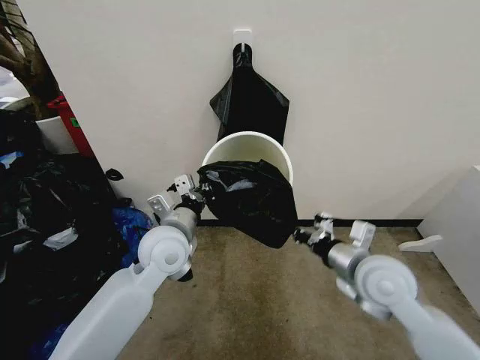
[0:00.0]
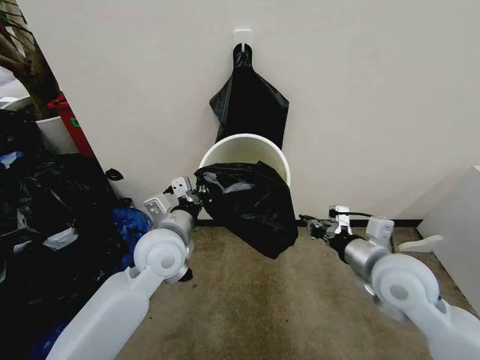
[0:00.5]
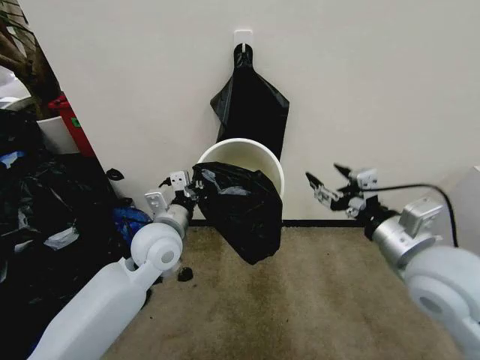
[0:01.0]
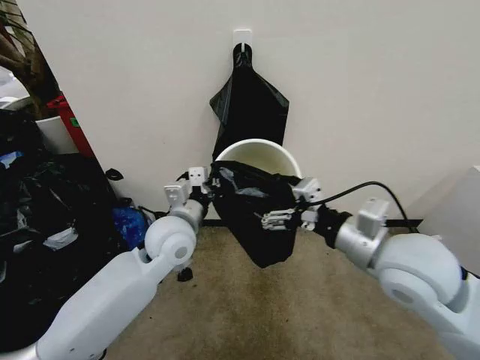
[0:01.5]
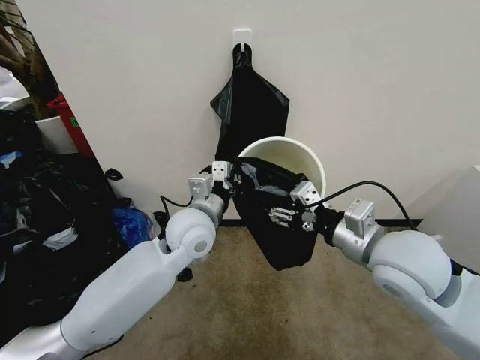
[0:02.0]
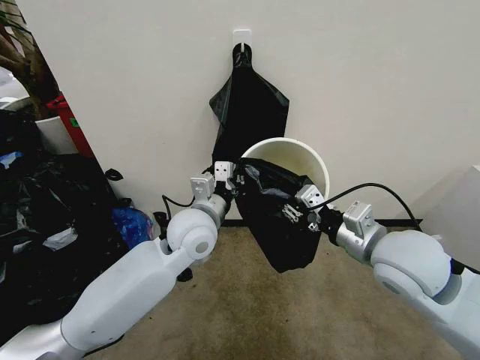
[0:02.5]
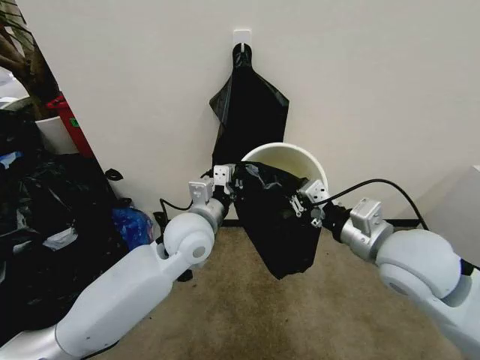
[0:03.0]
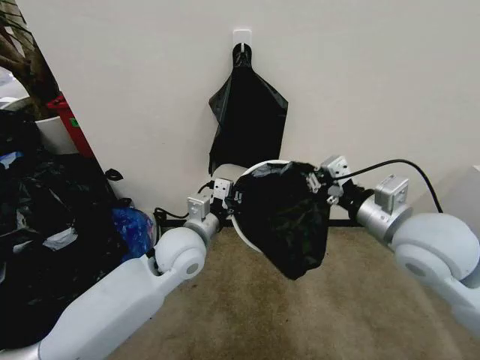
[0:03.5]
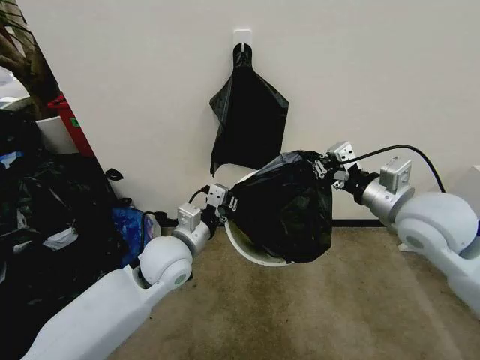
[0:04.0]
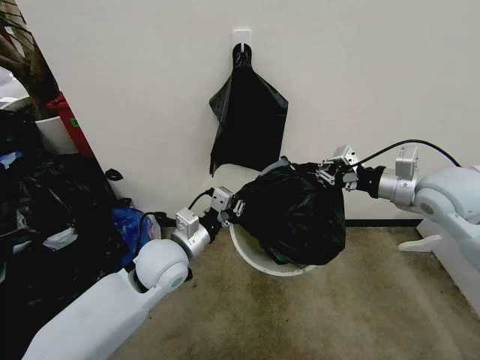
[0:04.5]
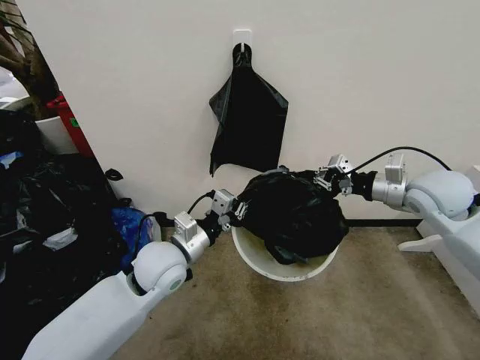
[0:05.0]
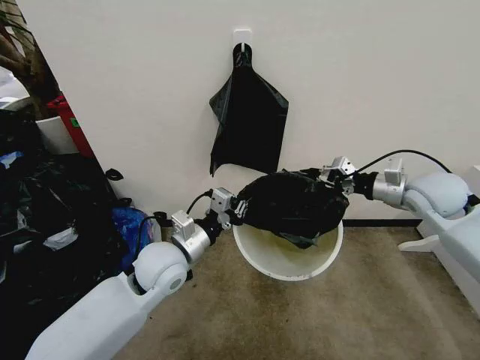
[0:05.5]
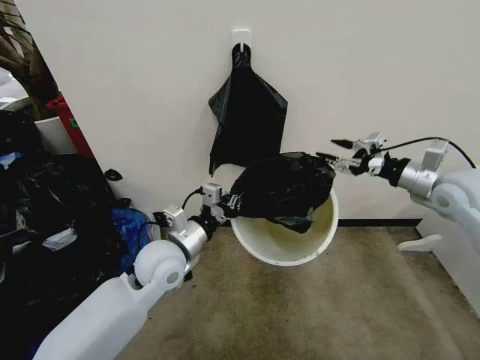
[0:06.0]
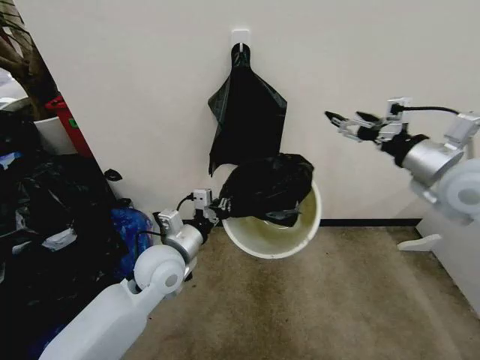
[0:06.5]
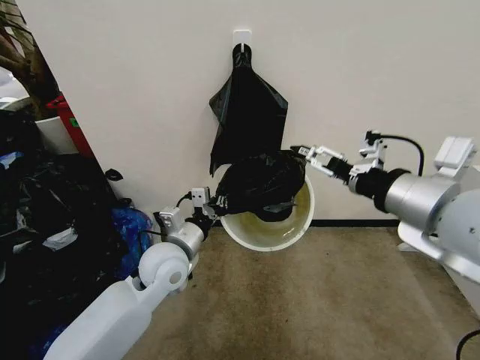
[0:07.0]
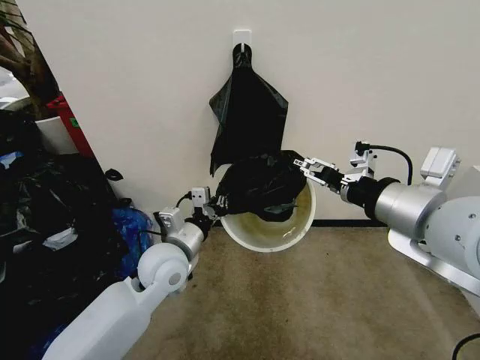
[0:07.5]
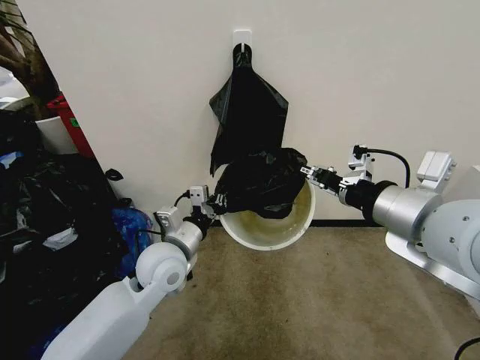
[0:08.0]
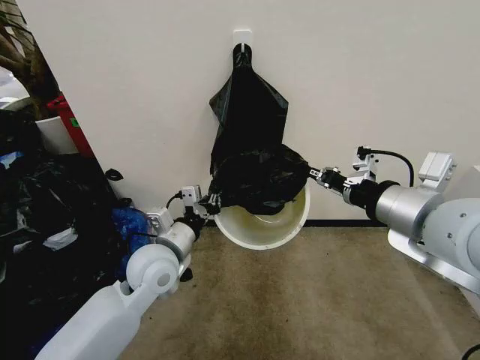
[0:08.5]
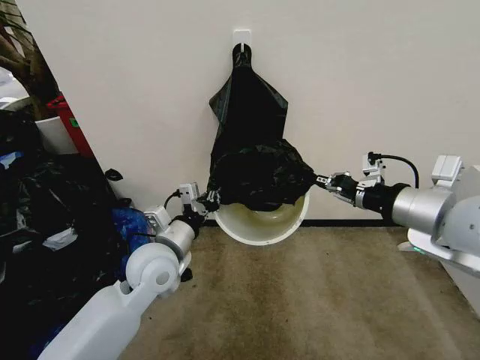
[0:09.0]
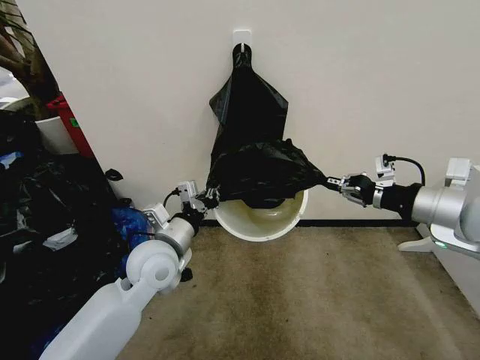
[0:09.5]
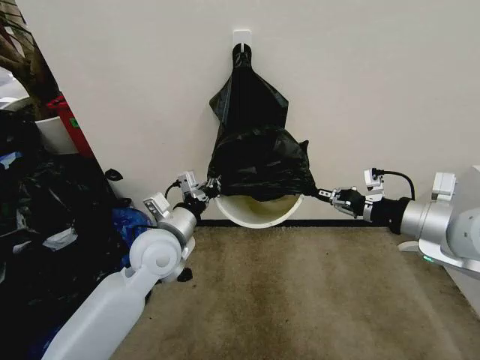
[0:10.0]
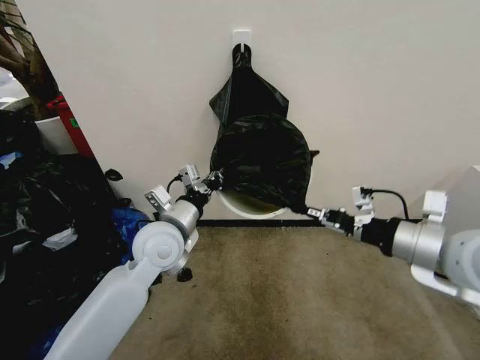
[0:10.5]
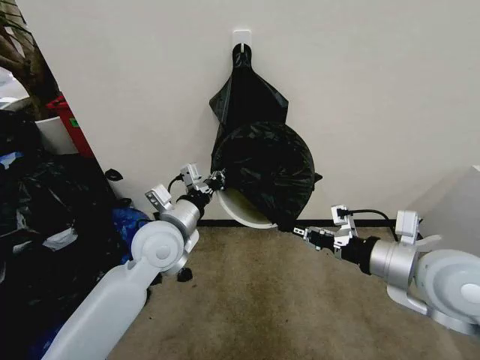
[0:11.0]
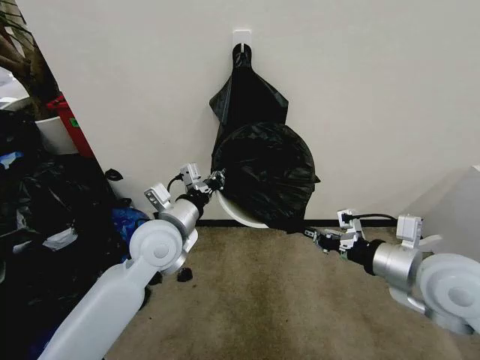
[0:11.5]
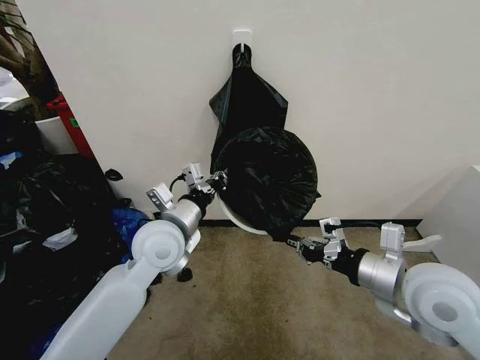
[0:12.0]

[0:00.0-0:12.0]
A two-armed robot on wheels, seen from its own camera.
Task of the whole recording: Place the garbage bag over the trash bin.
0:00.0 to 0:02.0: The left gripper goes approximately 5 cm to the right; the right gripper is displaced upward by roughly 10 cm, and opens up.
0:02.0 to 0:04.0: The left gripper shifts by about 5 cm, while the right gripper moves to the right and forward, about 10 cm, and closes its fingers.
0:04.0 to 0:06.0: The right gripper shifts roughly 15 cm to the right and forward, and opens its fingers.
0:06.0 to 0:08.0: The right gripper shifts about 25 cm to the left, backward and upward, and closes.
0:08.0 to 0:10.0: The right gripper goes approximately 10 cm to the right and downward.
0:10.0 to 0:12.0: The right gripper heads to the left, downward and backward, covering approximately 10 cm.

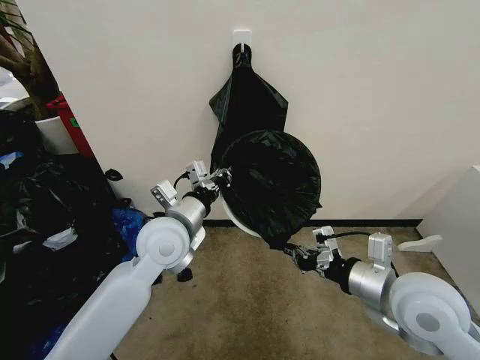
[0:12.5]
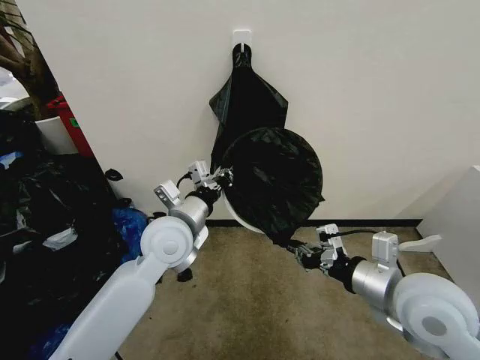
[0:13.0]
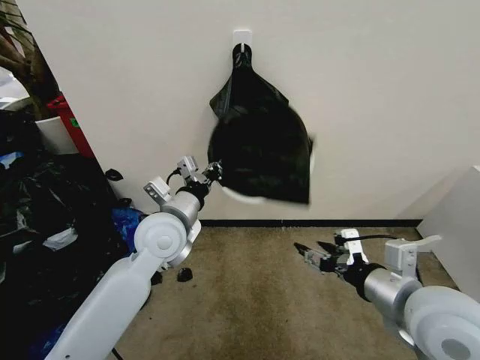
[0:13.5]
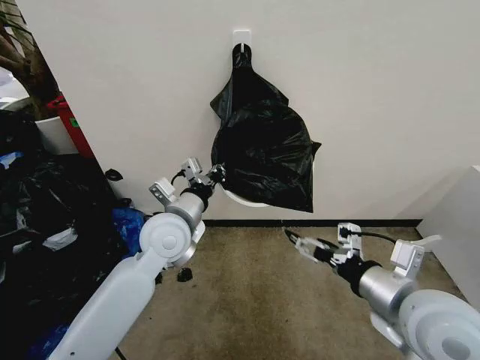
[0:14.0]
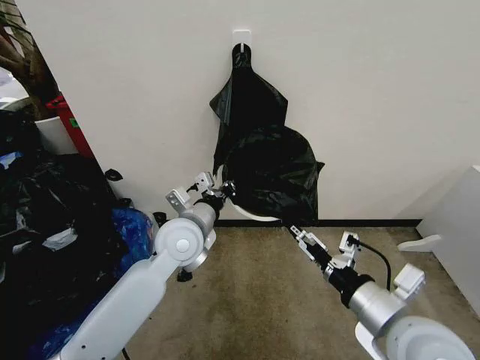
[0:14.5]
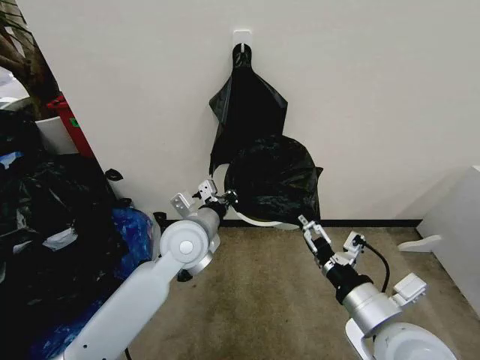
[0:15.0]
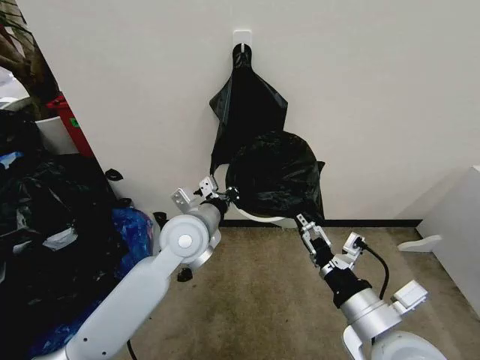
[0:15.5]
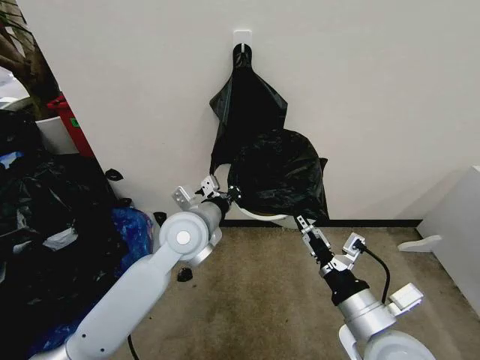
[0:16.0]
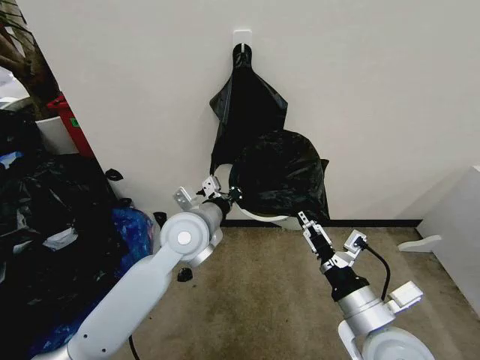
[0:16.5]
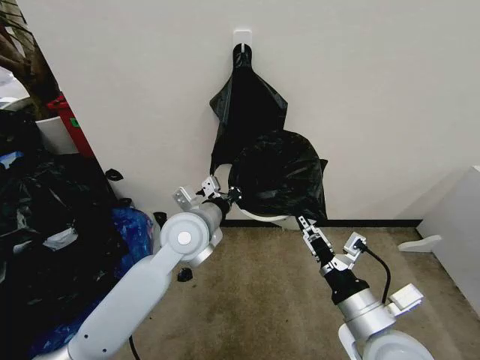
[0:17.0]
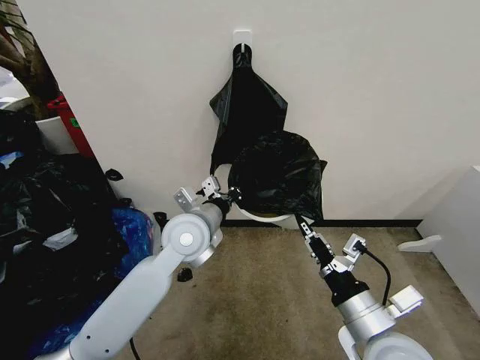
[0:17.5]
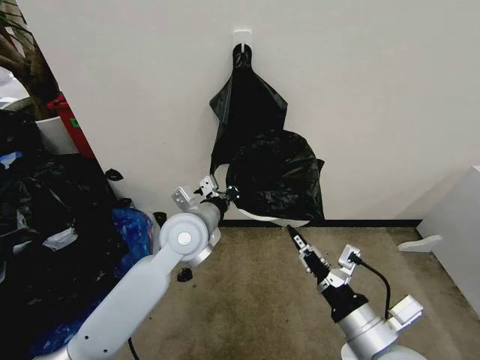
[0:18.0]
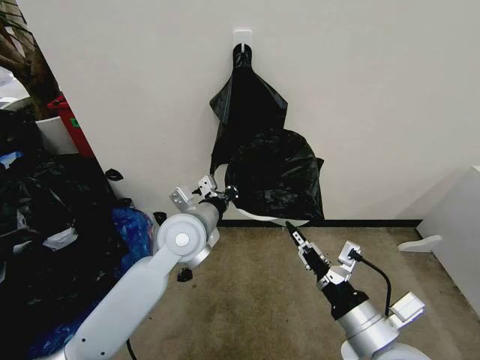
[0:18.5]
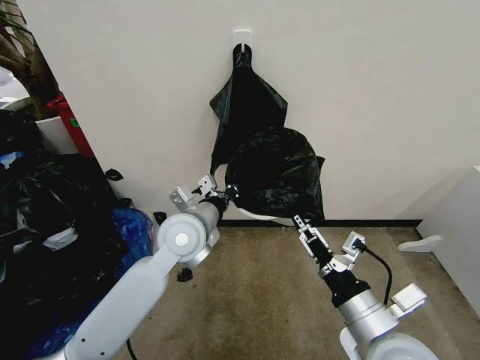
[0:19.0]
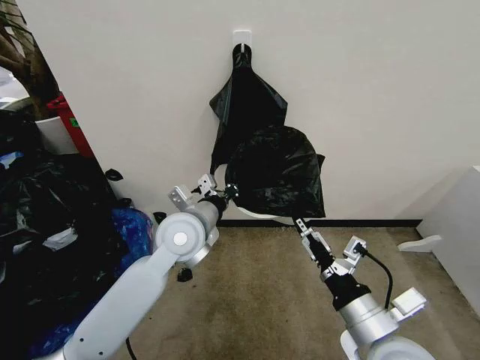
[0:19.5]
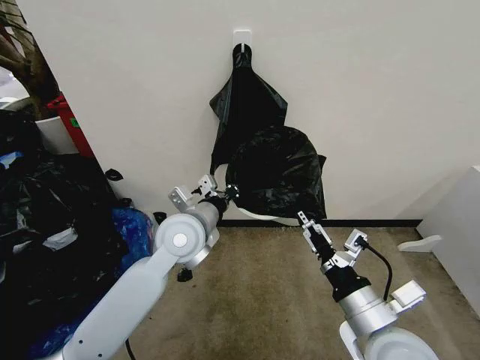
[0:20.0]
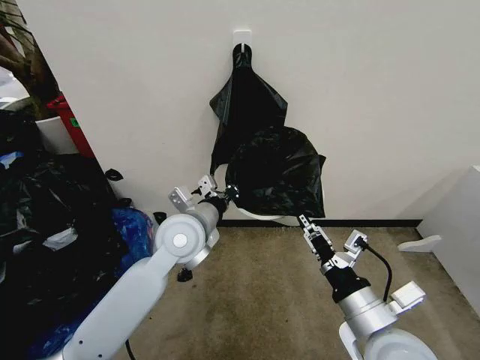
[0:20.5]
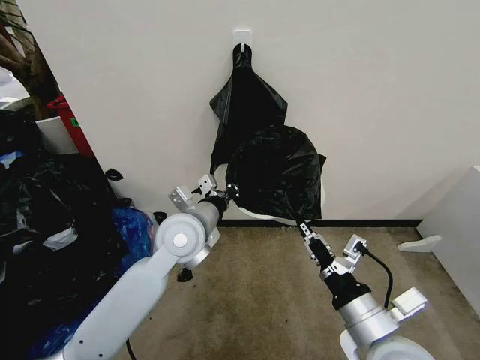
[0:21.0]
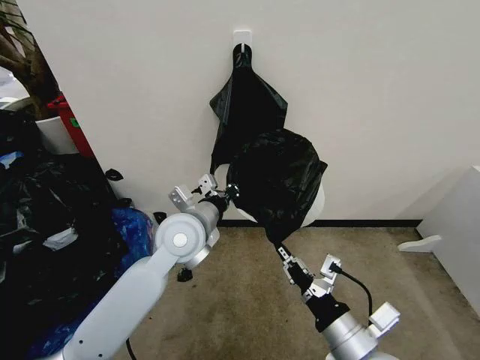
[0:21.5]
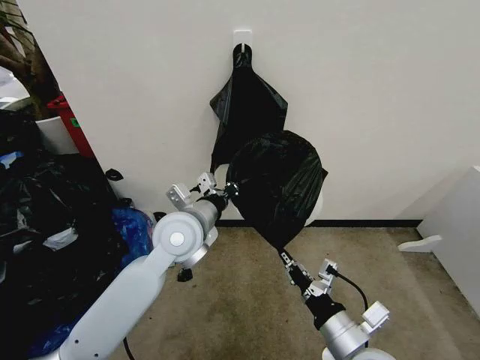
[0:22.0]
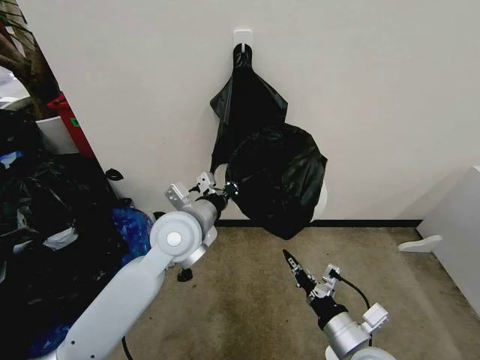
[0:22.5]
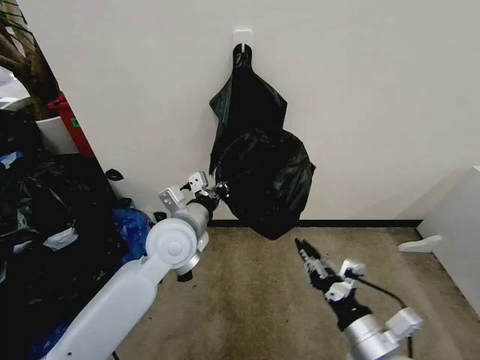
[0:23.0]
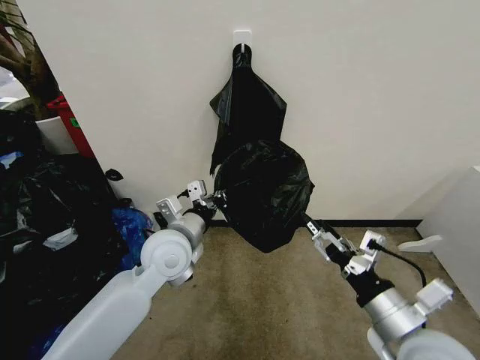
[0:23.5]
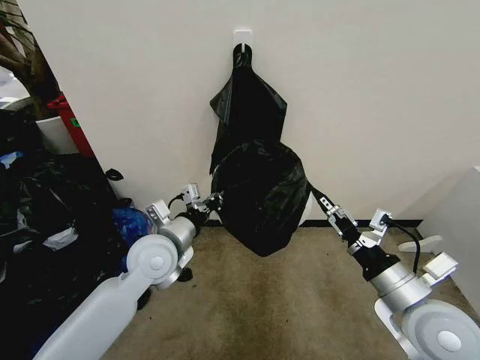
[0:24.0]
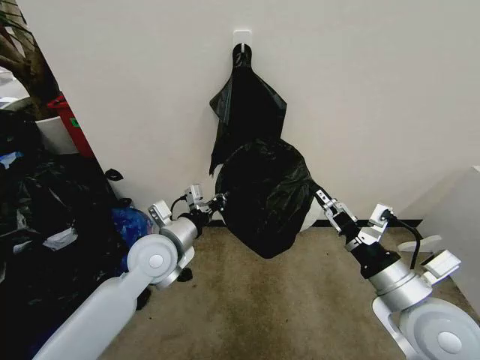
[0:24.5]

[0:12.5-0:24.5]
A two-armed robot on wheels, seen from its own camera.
Task of the whole recording: Place the garbage bag over the trash bin.
0:12.5 to 0:14.5: The right gripper goes some 5 cm backward, and opens up.
0:14.5 to 0:16.5: The right gripper ends up approximately 5 cm from where it was.
0:16.5 to 0:18.5: The right gripper closes.
0:18.5 to 0:20.5: The right gripper opens, then closes once more.
0:20.5 to 0:22.5: The right gripper travels downward by some 10 cm, and closes up.
0:22.5 to 0:24.5: The left gripper travels downward and to the left by approximately 10 cm, while the right gripper moves upward and to the right, approximately 15 cm, and opens.

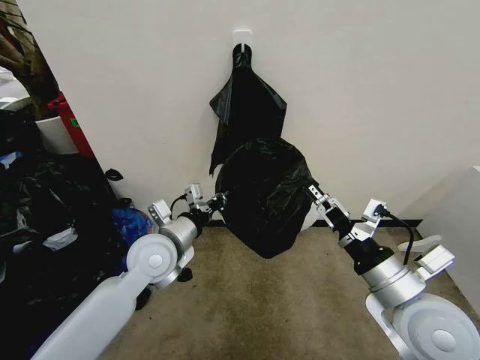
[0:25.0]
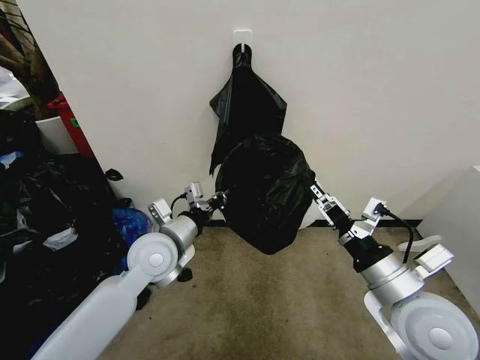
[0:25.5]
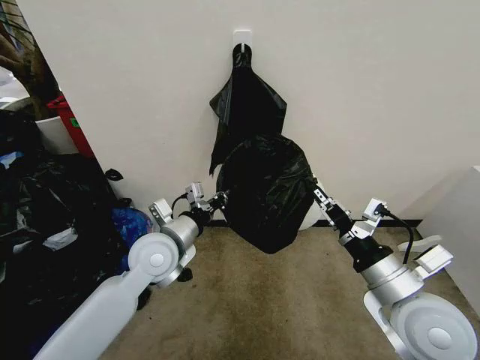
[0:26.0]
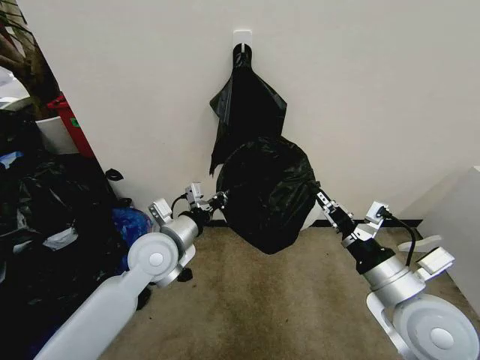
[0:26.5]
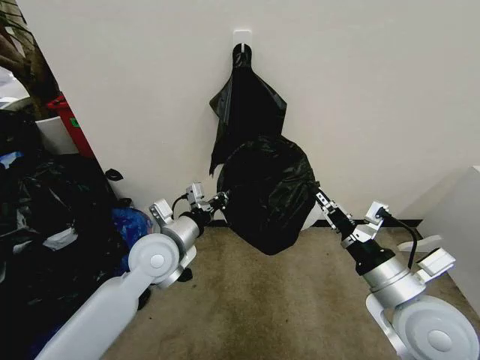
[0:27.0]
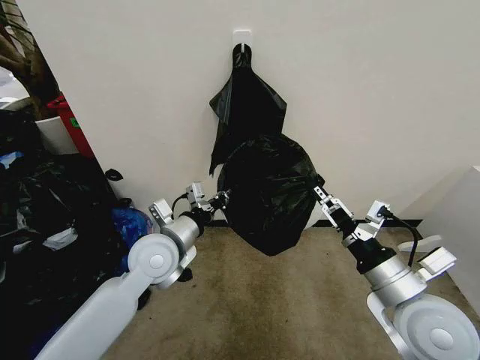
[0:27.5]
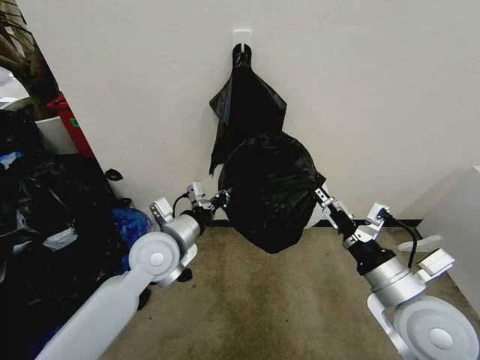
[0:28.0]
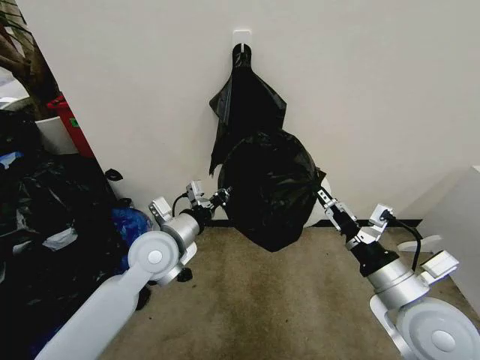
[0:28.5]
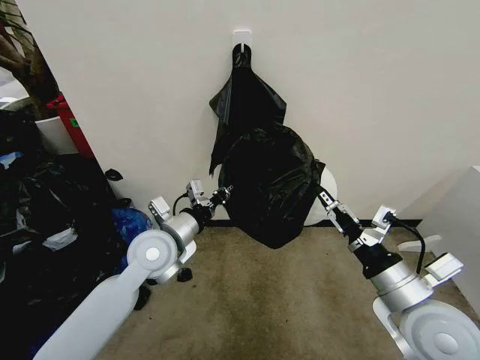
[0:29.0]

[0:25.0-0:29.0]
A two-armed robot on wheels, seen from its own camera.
Task of the whole recording: Place the garbage bag over the trash bin.
0:25.0 to 0:27.0: The right gripper closes.
0:27.0 to 0:29.0: The right gripper opens.
